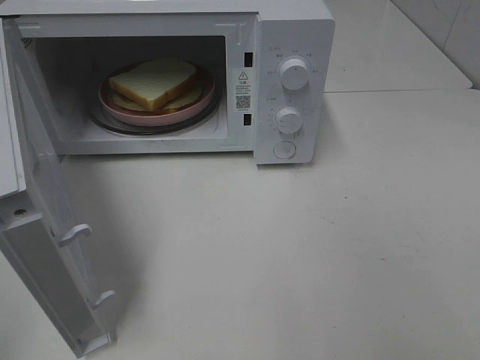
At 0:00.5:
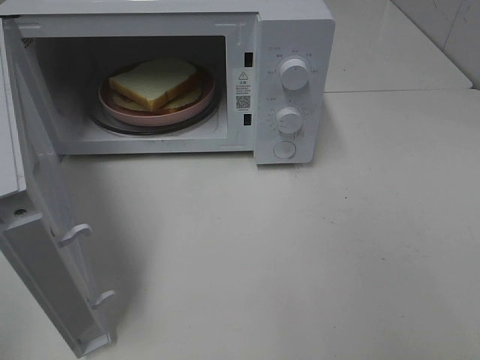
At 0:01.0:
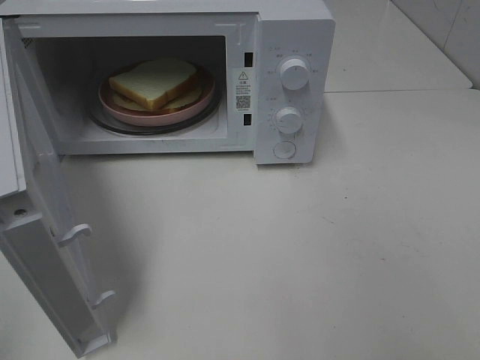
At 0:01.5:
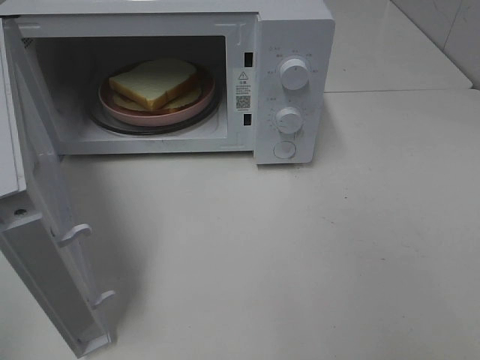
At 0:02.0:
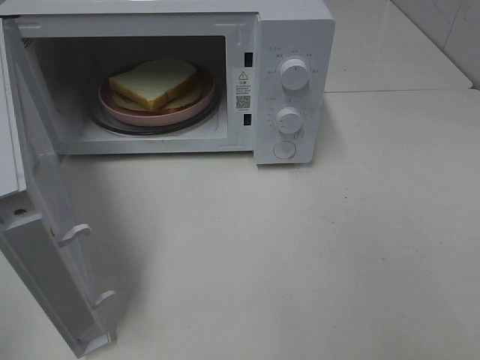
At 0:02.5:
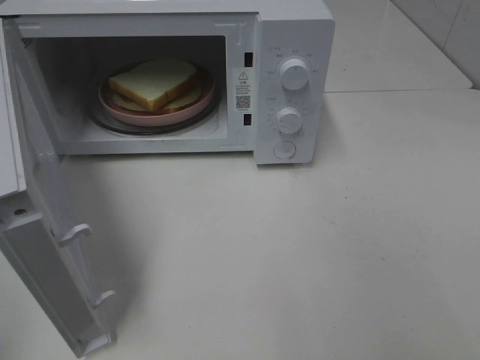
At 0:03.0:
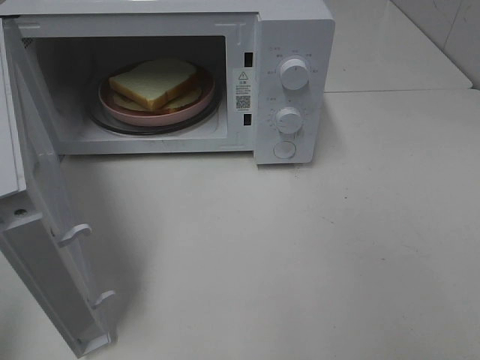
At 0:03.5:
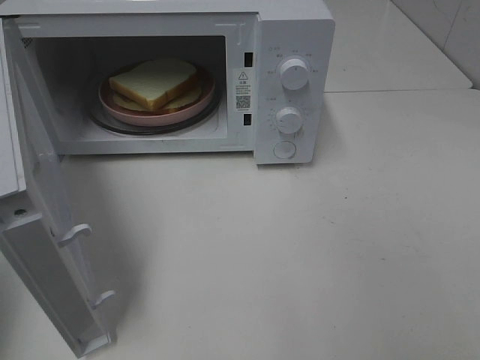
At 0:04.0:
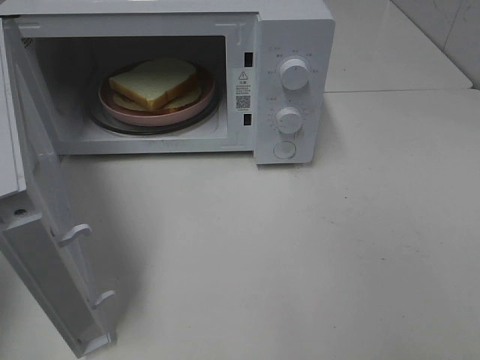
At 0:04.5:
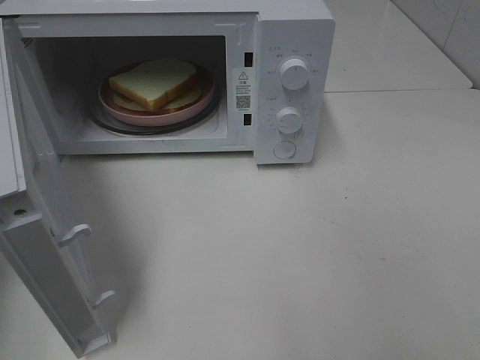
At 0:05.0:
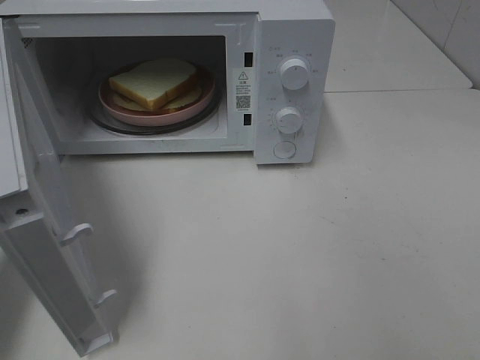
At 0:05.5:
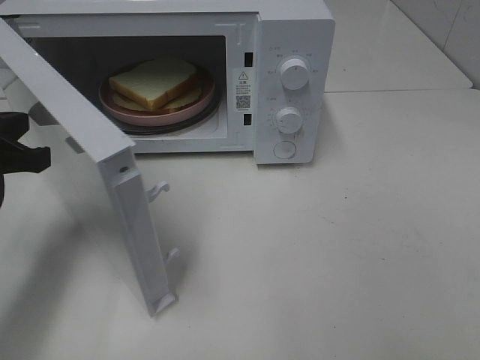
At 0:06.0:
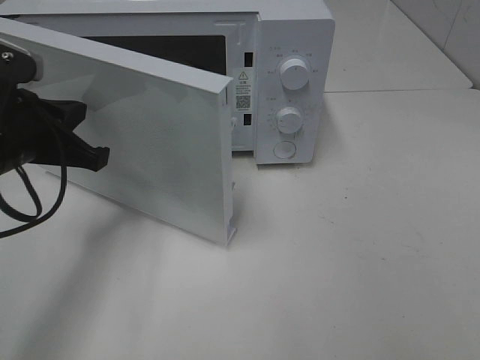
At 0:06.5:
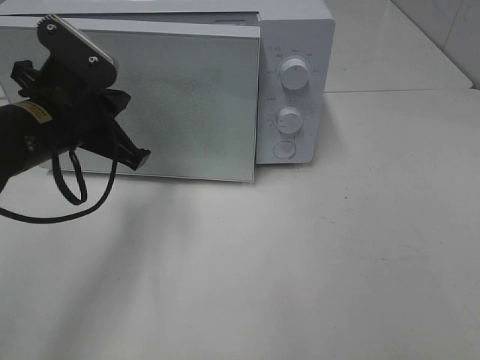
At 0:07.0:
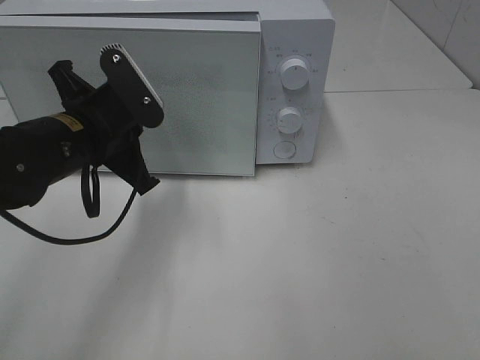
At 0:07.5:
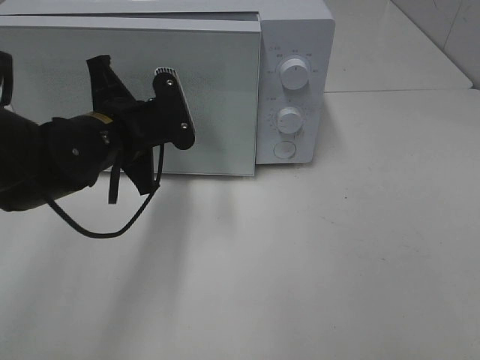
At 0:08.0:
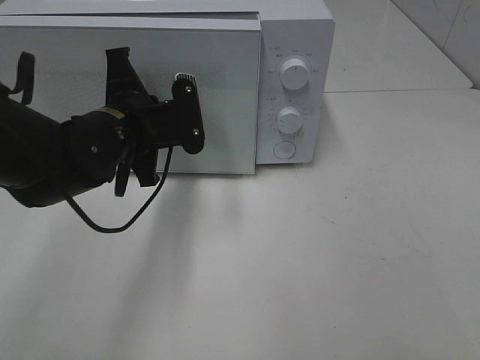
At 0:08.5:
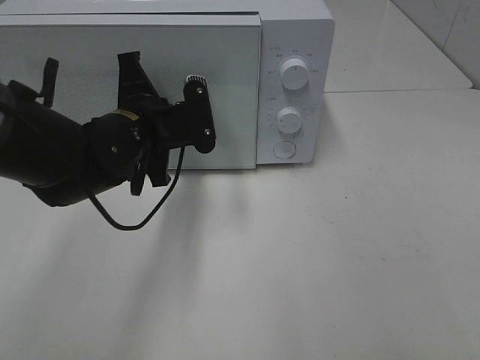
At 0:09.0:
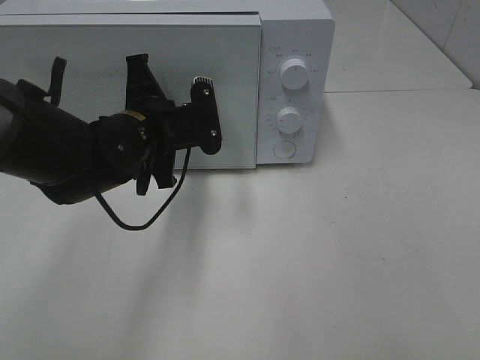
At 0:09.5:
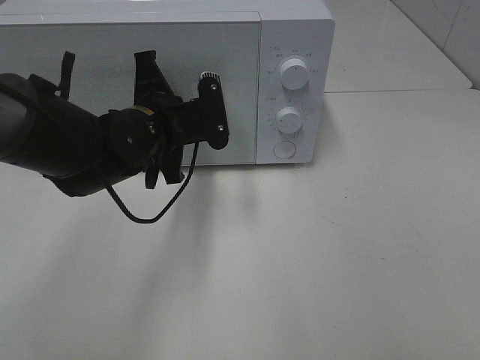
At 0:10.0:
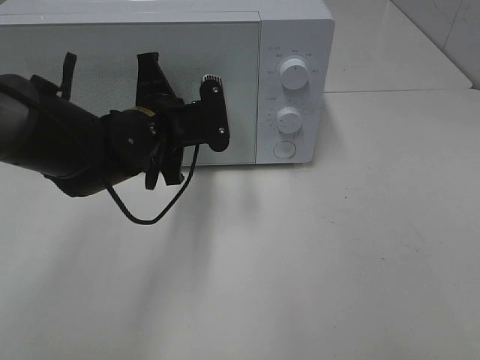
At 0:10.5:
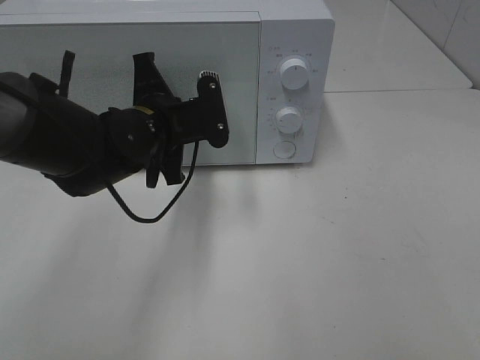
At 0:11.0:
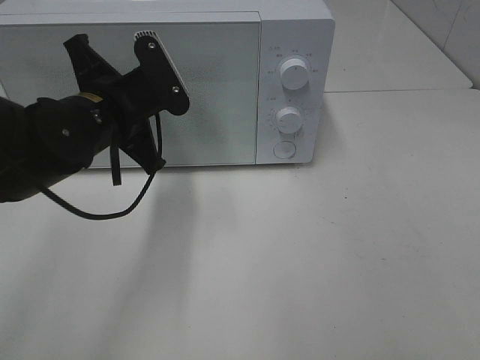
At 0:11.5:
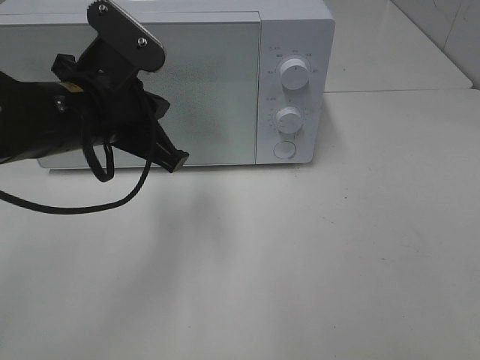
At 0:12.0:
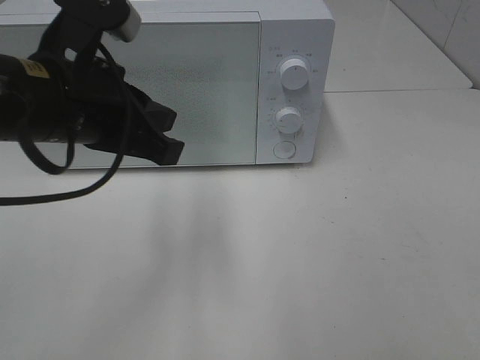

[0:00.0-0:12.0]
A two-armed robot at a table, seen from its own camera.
Task of the whole recording: Heat Sandwich.
Step, 0:00.0 to 0:12.0: Left hand: close the microwave door.
0:00.0 to 0:02.0: Neither gripper changes place.
0:04.0 to 0:06.0: The left gripper goes some 20 cm to the right, downward and forward.
0:06.0 to 0:08.0: The left gripper is displaced to the right and forward by some 10 cm.
0:08.0 to 0:10.0: The grippers stay close to where they were, moving slightly.
0:10.0 to 0:12.0: The left gripper shifts some 15 cm upward and backward.

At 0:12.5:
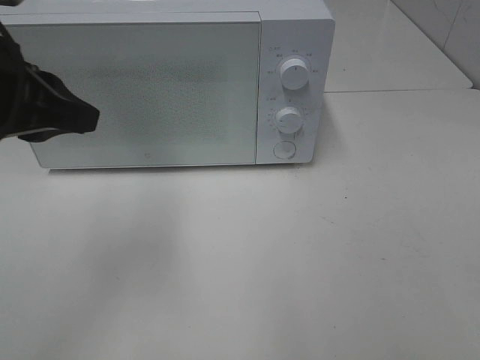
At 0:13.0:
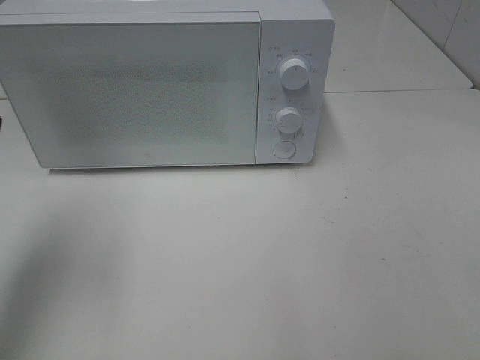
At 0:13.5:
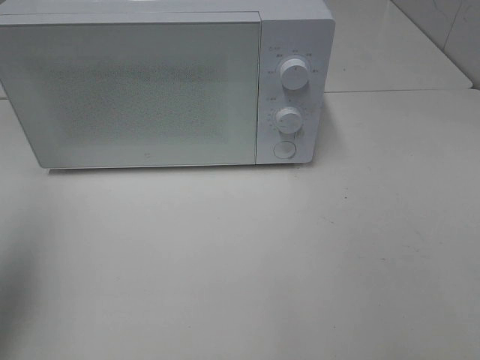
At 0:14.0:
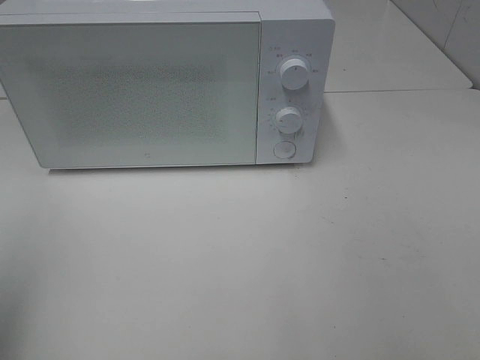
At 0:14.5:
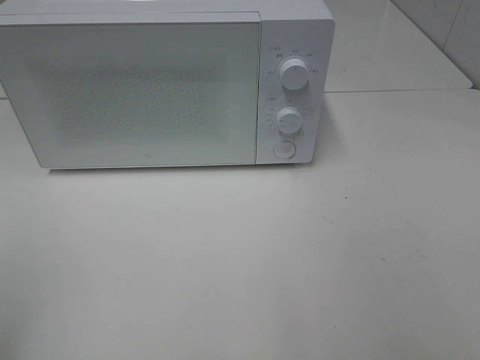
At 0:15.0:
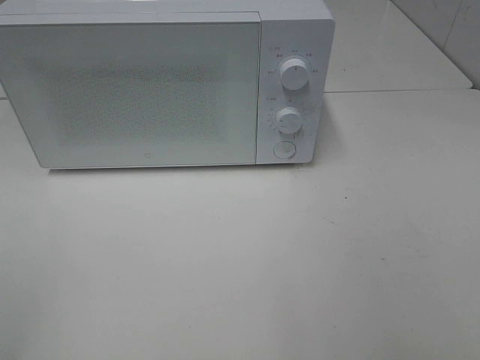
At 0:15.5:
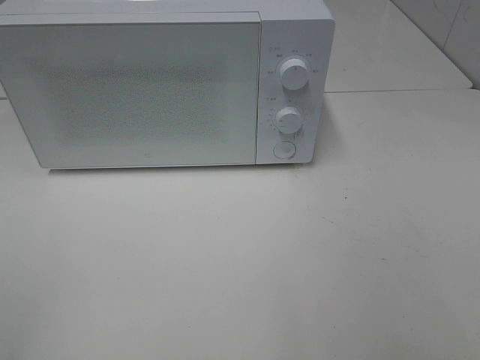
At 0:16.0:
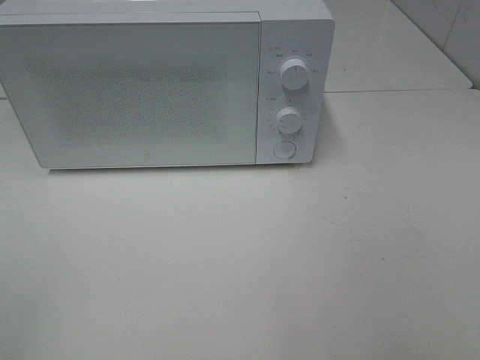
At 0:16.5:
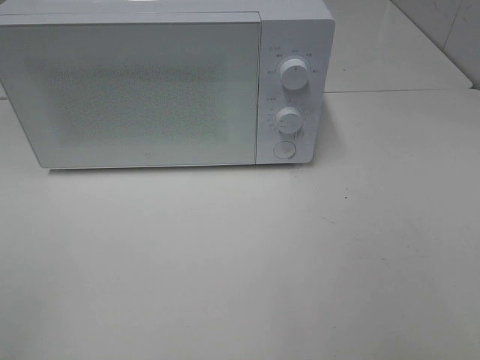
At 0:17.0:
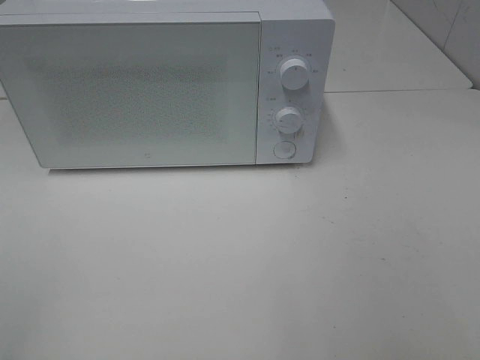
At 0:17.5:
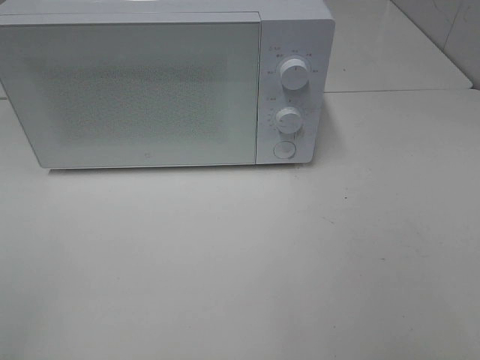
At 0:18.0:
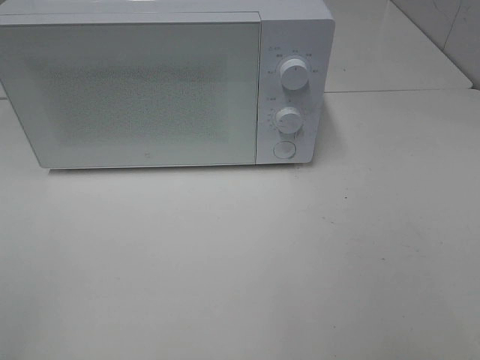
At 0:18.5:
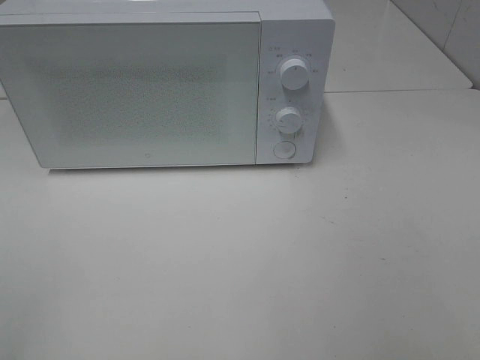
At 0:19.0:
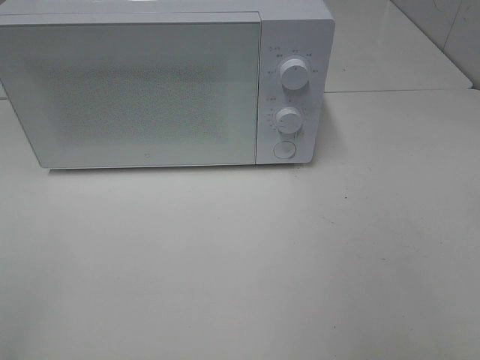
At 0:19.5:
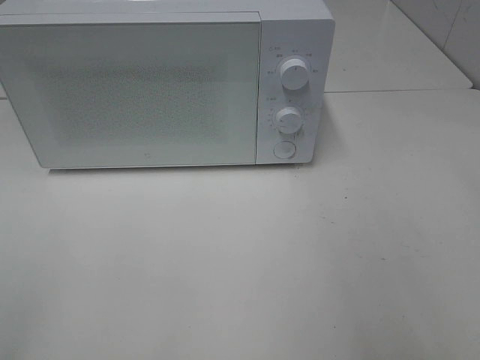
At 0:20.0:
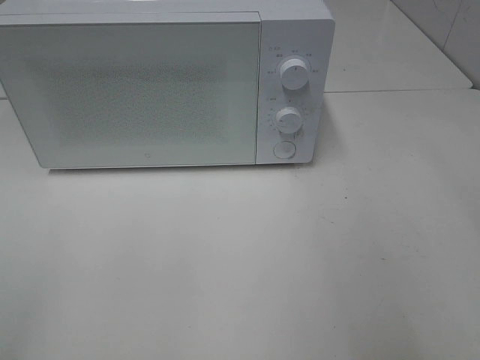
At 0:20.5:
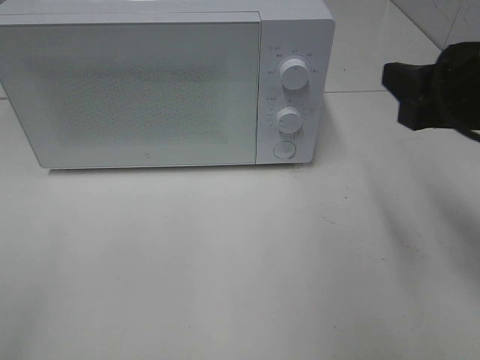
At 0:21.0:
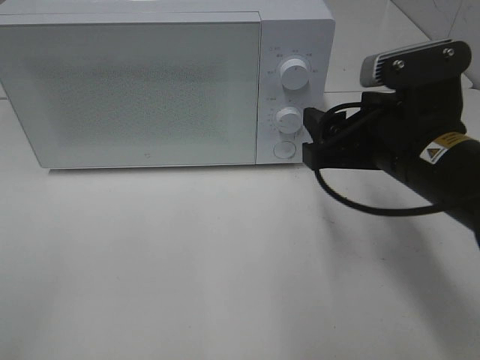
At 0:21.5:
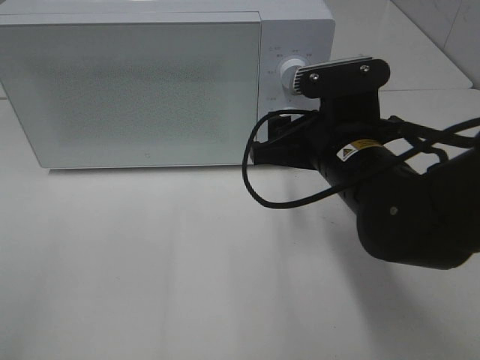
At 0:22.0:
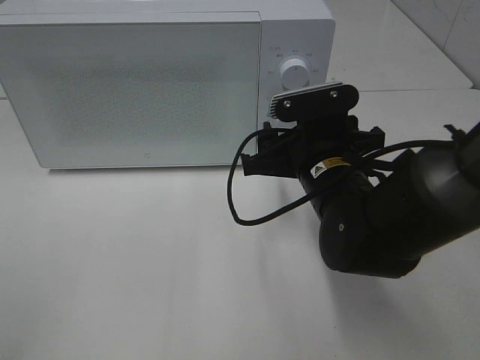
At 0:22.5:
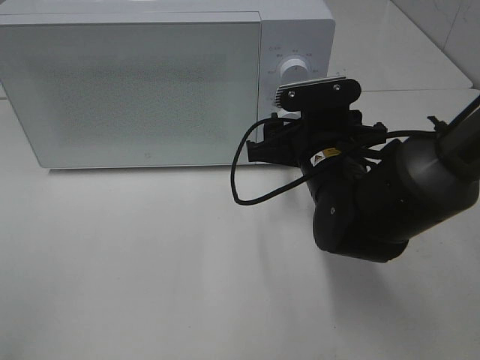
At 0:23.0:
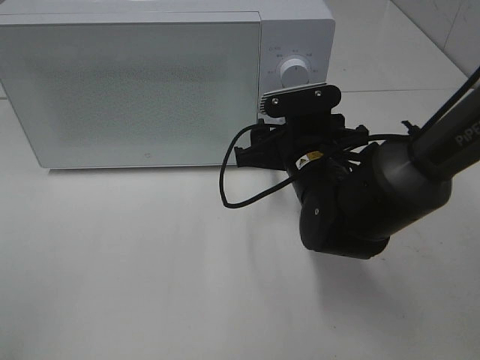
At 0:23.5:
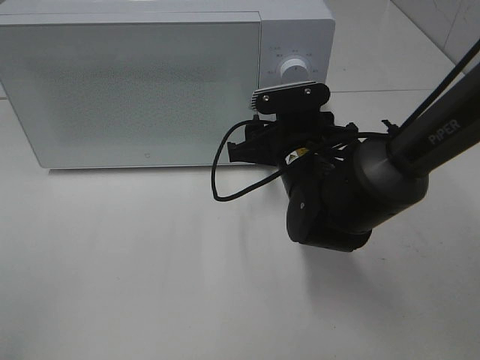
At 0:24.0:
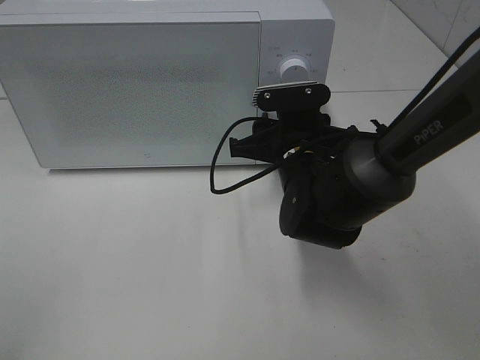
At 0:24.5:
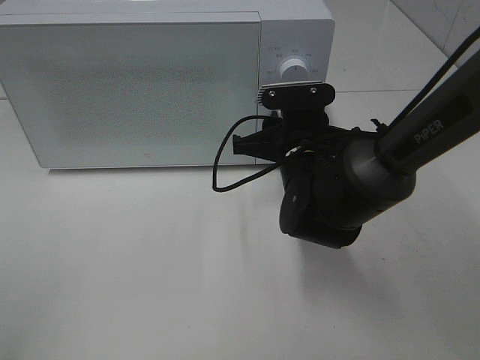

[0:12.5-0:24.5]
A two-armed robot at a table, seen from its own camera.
Task of the whole recording: Heat Sandwich.
0:12.5 to 0:14.5: The left gripper goes roughly 20 cm backward and to the left, and opens up.
0:16.5 to 0:18.5: Both grippers stay put.
0:18.5 to 0:20.5: The right gripper goes some 20 cm forward.
0:20.5 to 0:22.5: The right gripper goes roughly 20 cm downward, to the left and forward.
0:22.5 to 0:24.5: The grippers move only a little.

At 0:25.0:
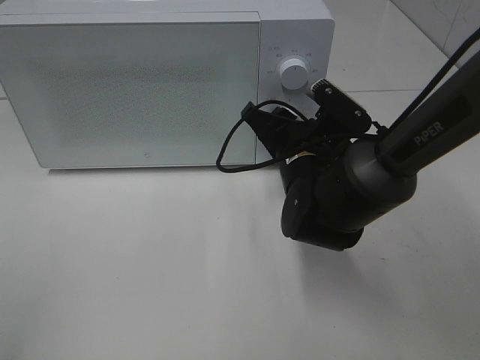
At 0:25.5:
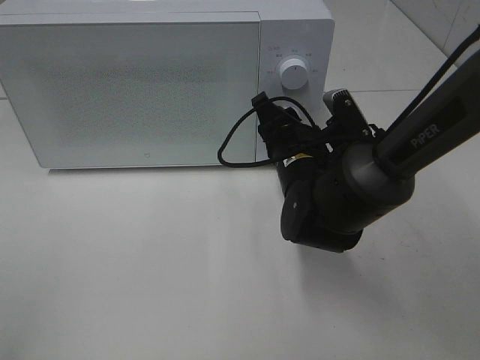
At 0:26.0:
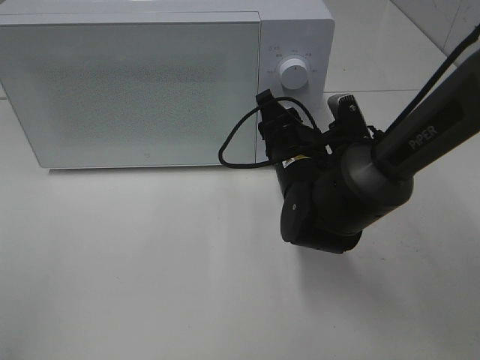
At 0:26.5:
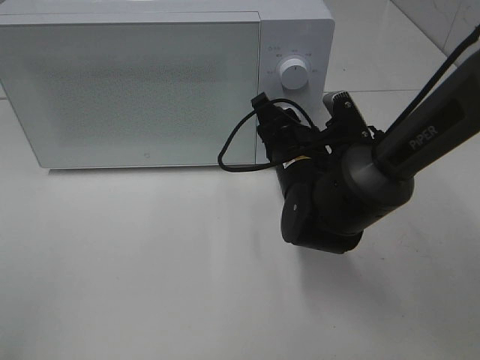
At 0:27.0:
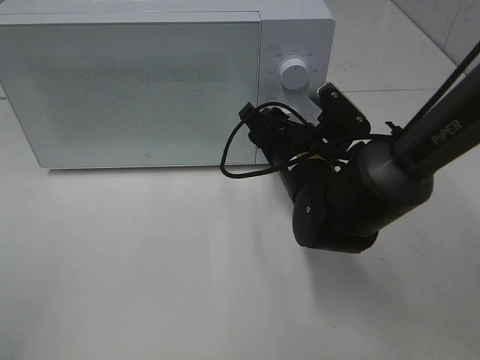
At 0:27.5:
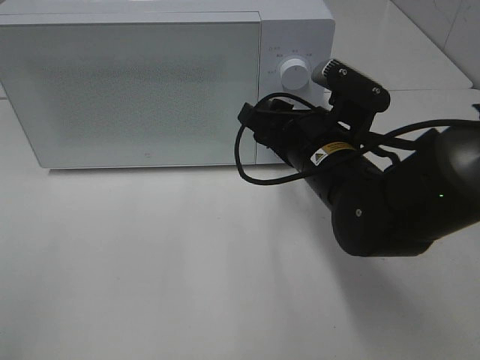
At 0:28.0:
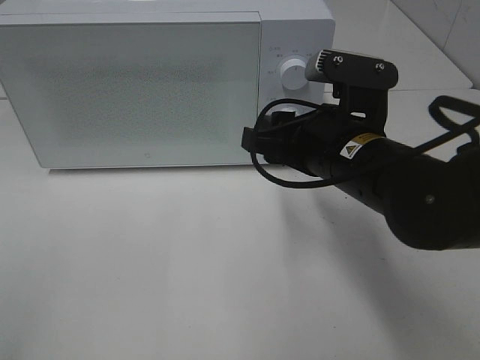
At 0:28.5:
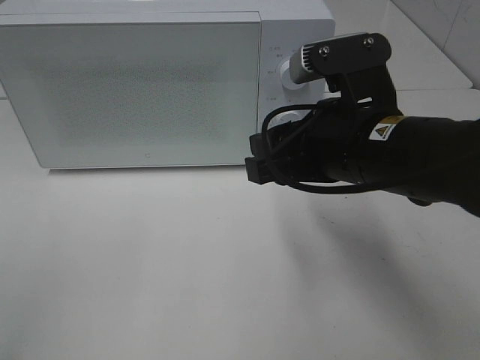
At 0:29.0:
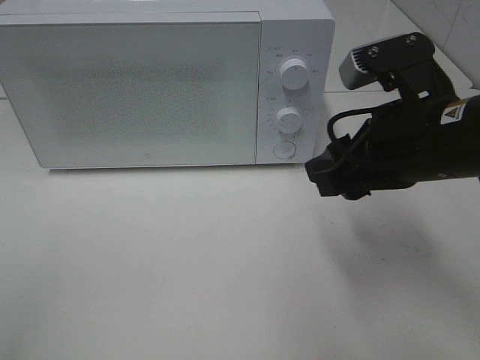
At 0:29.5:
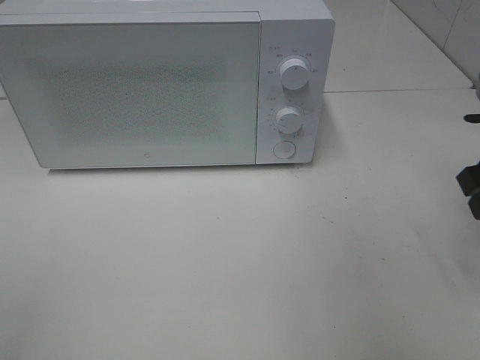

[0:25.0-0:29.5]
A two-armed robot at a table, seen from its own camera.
Task of the whole recording: Heat Sandwich.
Step, 0:25.0 to 0:27.5: Right hand: twist timer button.
0:27.0 to 0:29.5: The right gripper heads to the right, upward and backward, covering about 25 cm.
